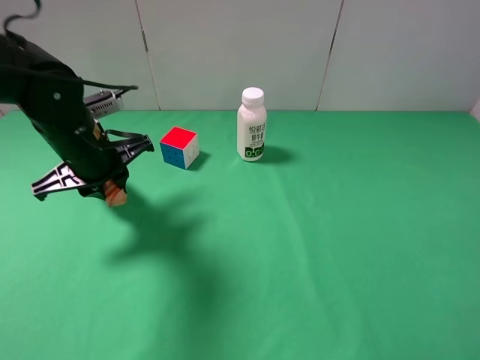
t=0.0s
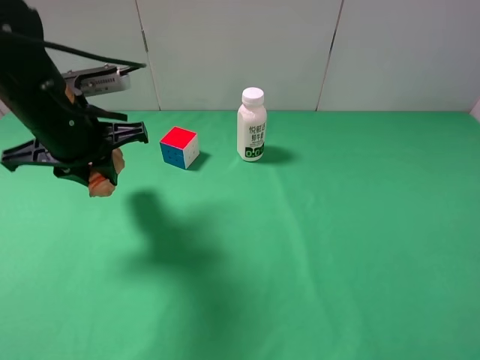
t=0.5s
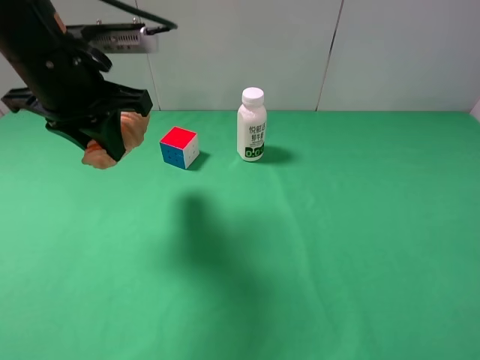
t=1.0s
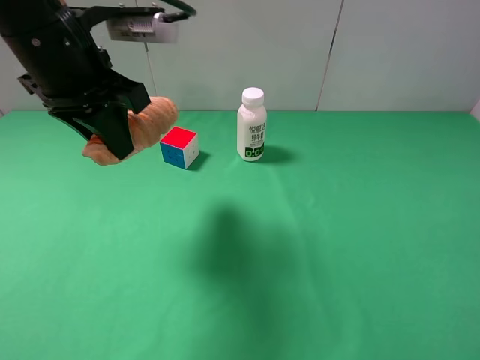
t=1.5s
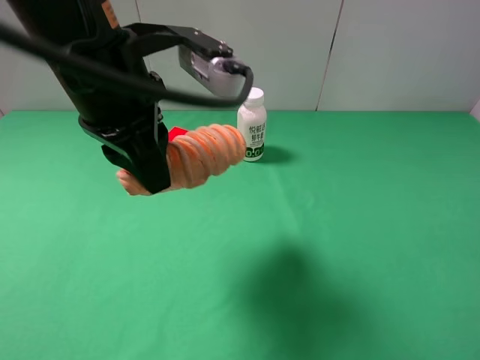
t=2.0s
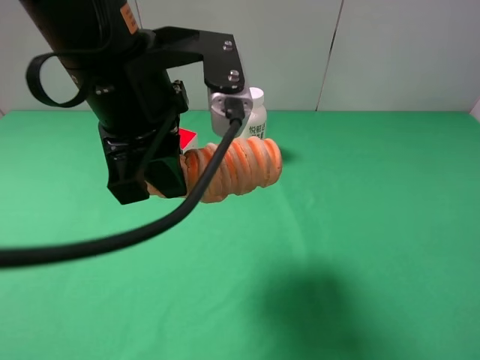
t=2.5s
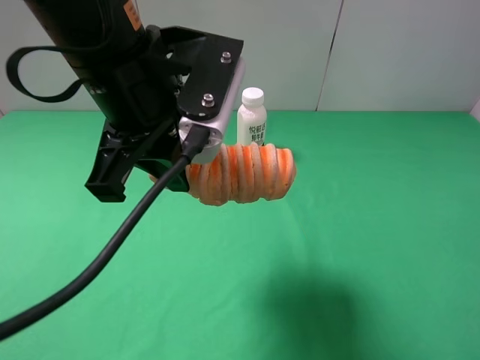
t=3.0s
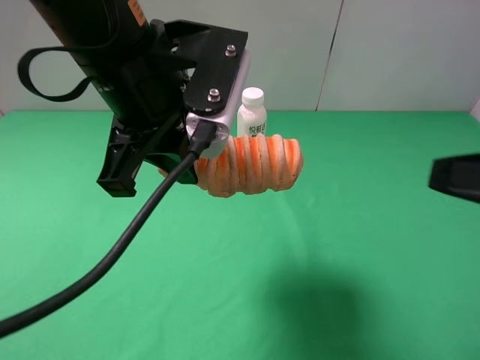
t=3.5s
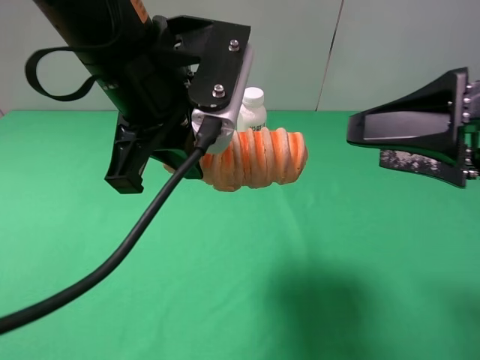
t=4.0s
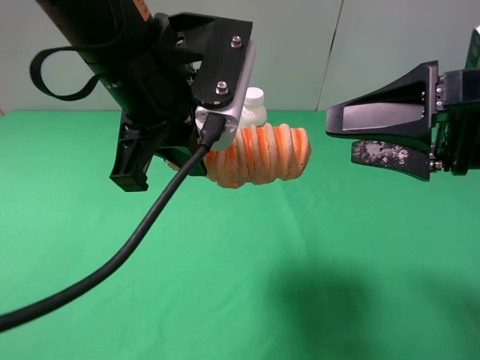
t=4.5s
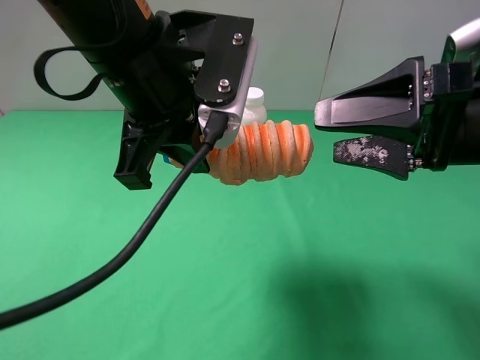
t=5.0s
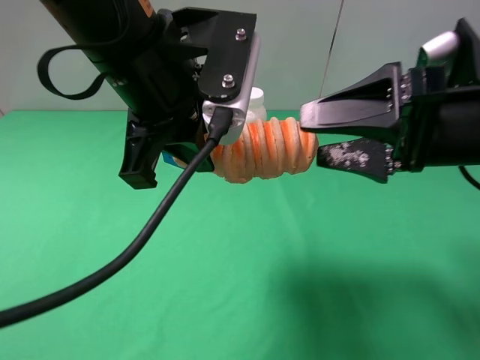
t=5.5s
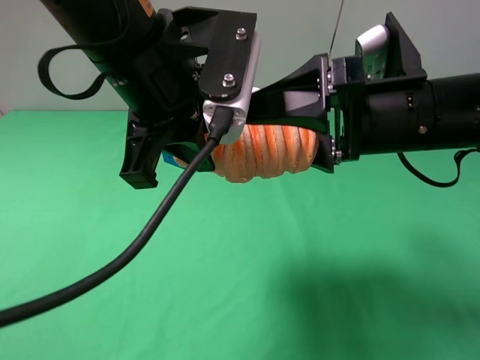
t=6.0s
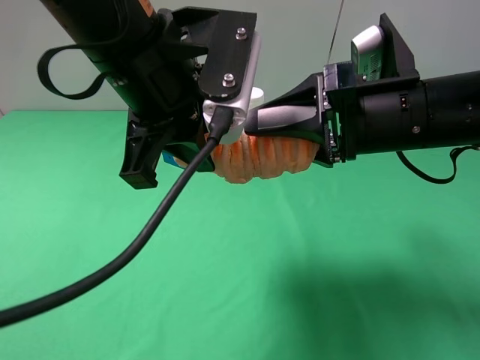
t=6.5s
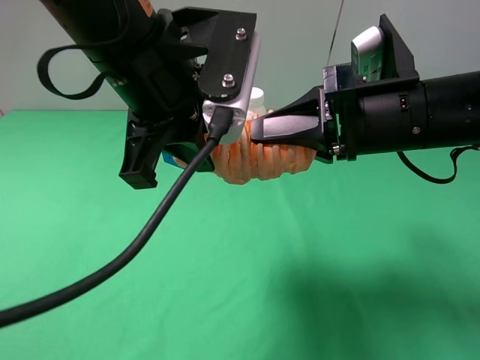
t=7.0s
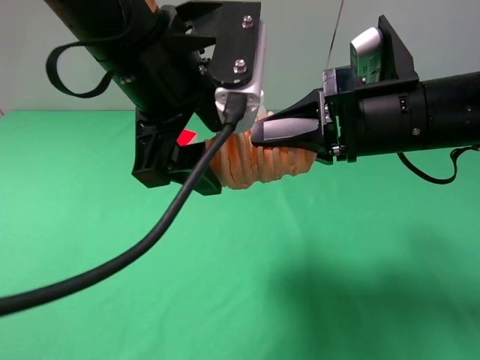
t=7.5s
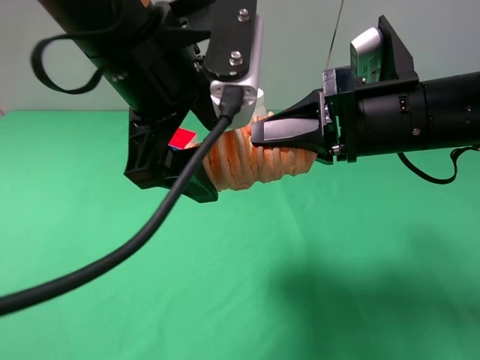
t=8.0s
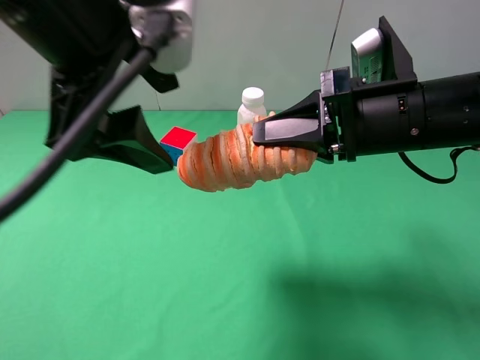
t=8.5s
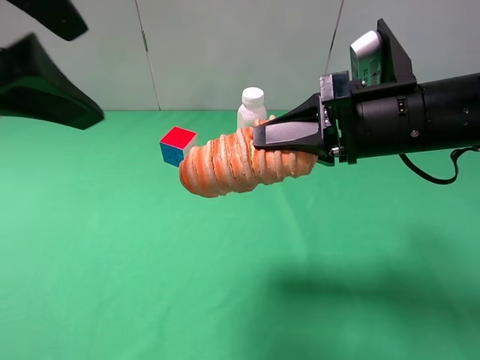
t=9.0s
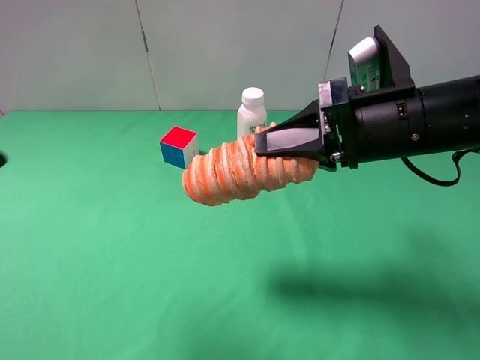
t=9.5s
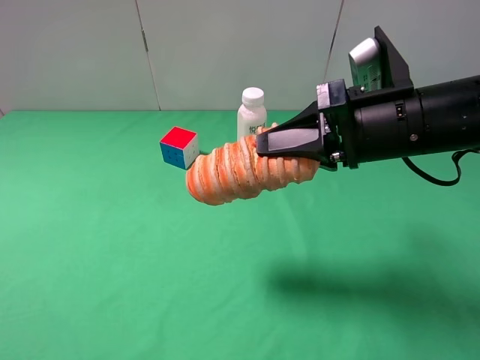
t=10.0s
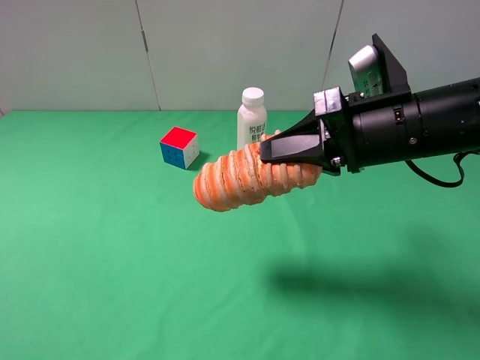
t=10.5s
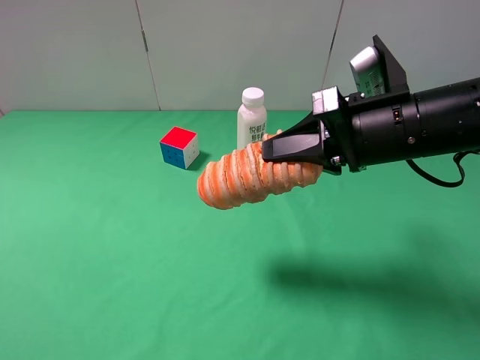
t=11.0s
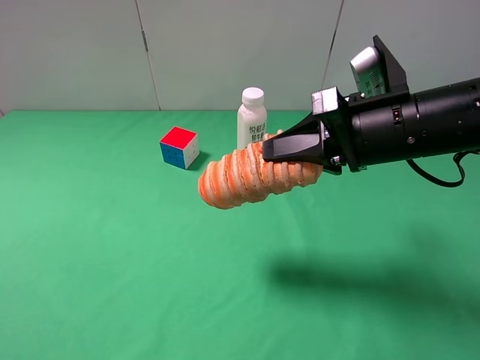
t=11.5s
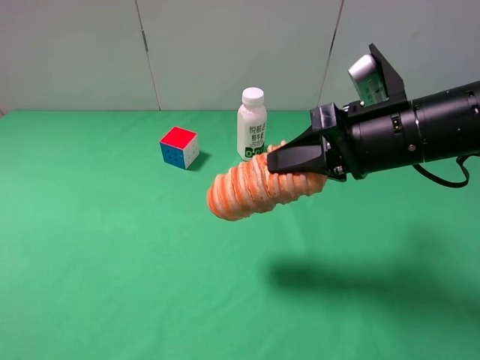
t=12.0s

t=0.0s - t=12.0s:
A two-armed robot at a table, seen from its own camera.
Task of the whole recording: use the left gripper to pick up the item and transfer it from the left gripper to the right gripper.
Step, t=0.0s - t=7.5s: Pass the long bread to the right gripper.
t=0.0s - t=2.0s: The left gripper goes roughly 15 cm upward, to the right and backward.
t=2.0s - t=4.0s: The right gripper moves forward and to the left, approximately 15 cm.
t=4.0s - t=6.0s: The right gripper shifts roughly 10 cm to the left and forward.
t=6.0s - t=8.0s: The left gripper opens up; the right gripper closes up.
t=8.0s - t=10.0s: The left gripper moves to the left and backward, roughly 30 cm.
t=10.0s - t=12.0s: The left gripper moves some 5 cm.

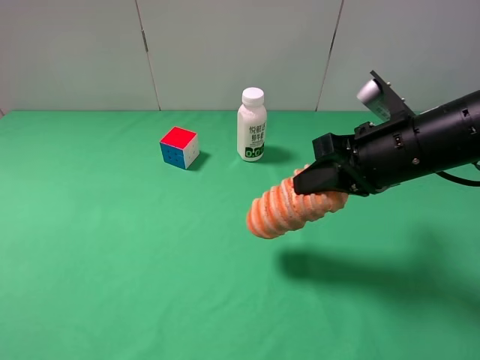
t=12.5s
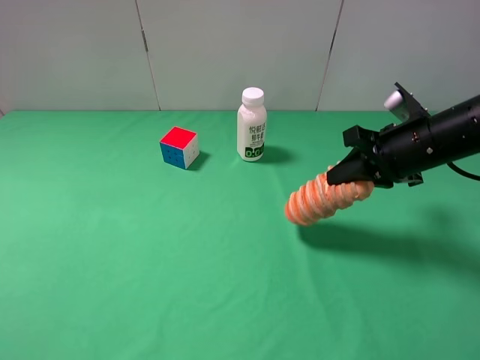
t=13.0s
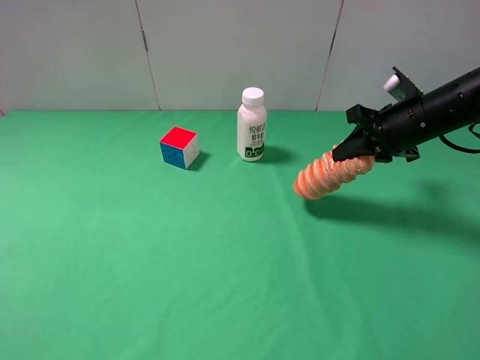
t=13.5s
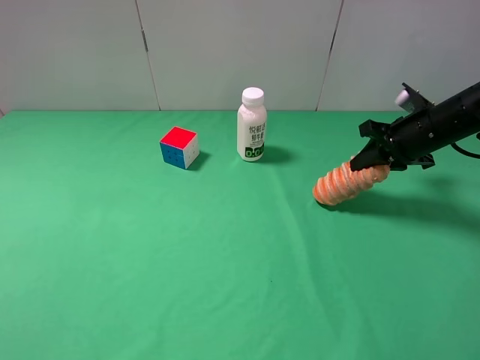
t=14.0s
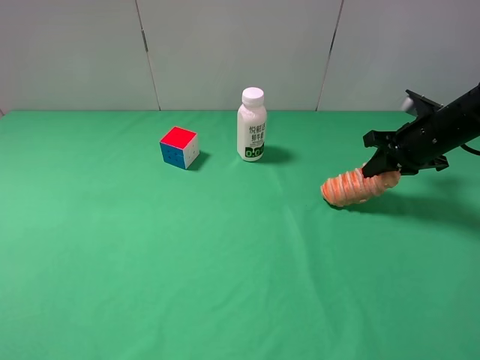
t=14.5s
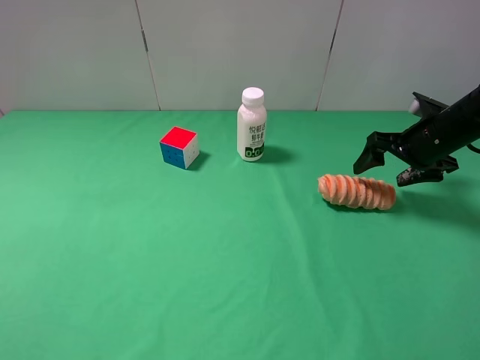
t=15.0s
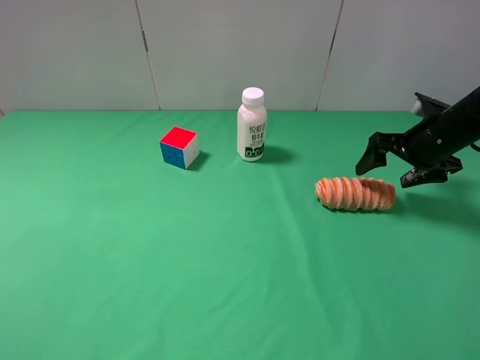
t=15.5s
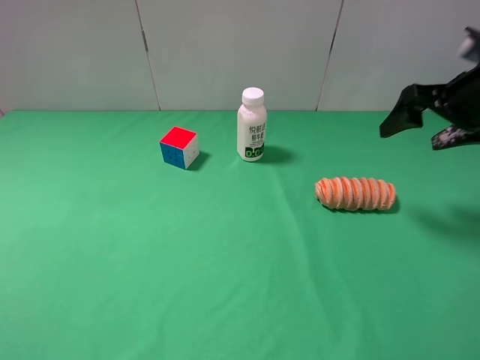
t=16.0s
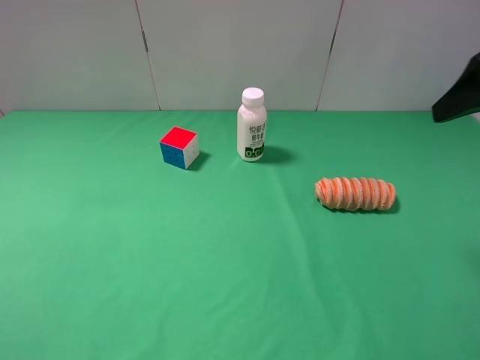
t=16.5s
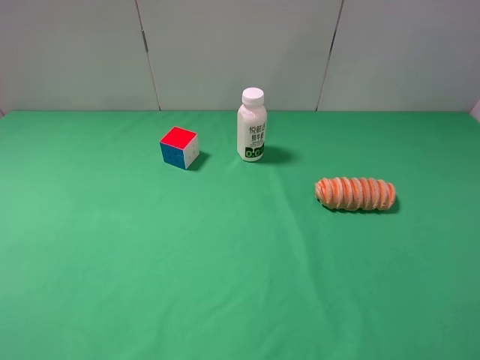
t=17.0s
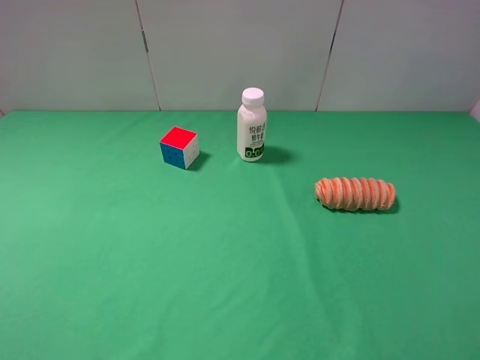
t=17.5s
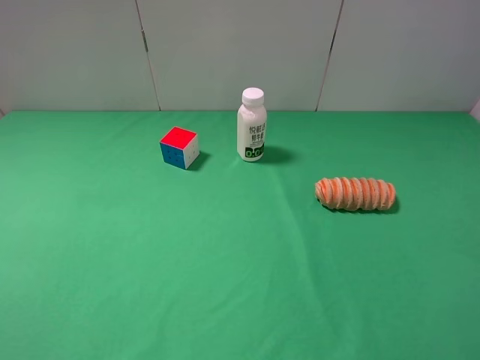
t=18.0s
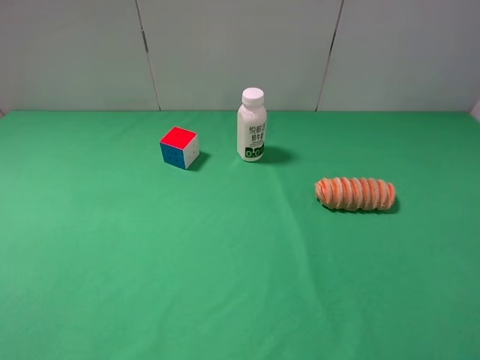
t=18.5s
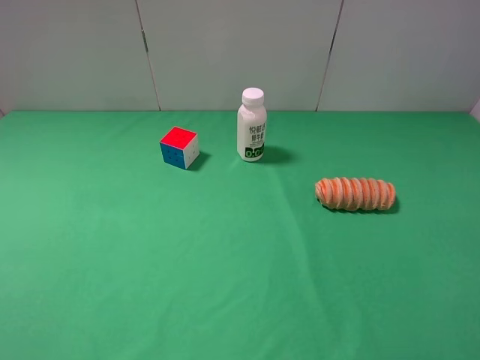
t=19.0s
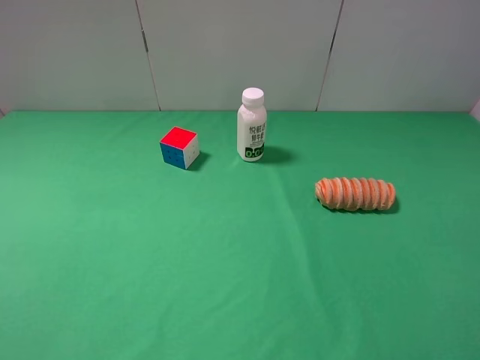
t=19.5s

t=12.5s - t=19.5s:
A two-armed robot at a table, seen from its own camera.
Task of the whole recording: use the left gripper to pick up the item and transfer it from the left gripper to the right gripper.
Step, t=12.5s - t=15.0s: The right gripper places long bread on the right side of the table.
t=12.5s - t=14.5s: The right gripper travels forward, to the right and downward by some 20 cm.
t=14.5s - t=16.0s: The right gripper heads upward, covering approximately 10 cm, and opens.
t=16.0s - t=17.5s: The right gripper is displaced backward by approximately 30 cm.
